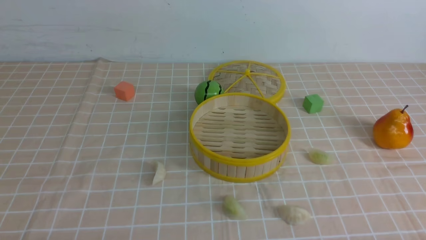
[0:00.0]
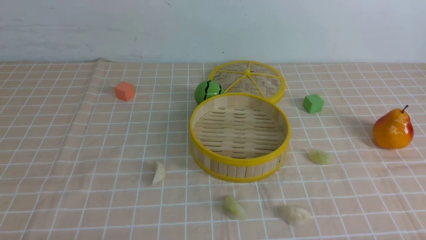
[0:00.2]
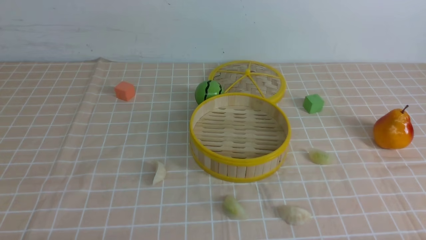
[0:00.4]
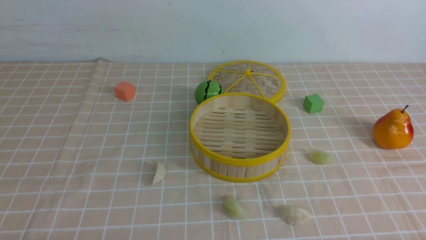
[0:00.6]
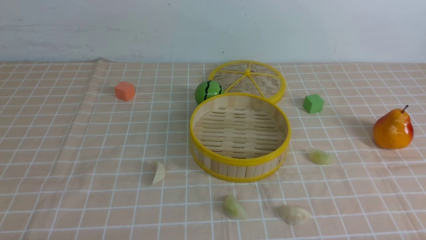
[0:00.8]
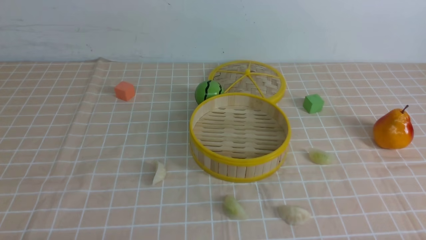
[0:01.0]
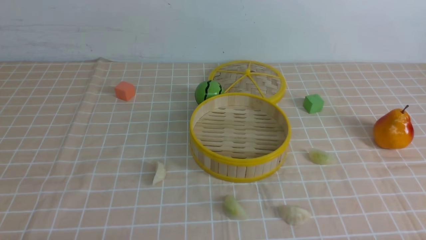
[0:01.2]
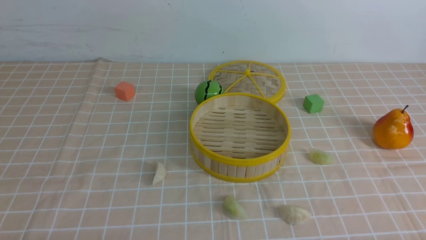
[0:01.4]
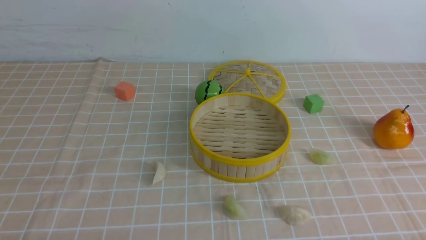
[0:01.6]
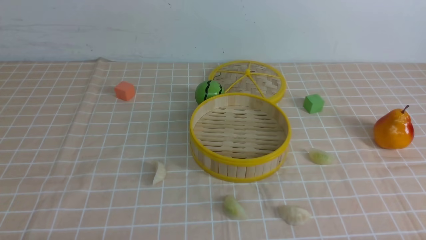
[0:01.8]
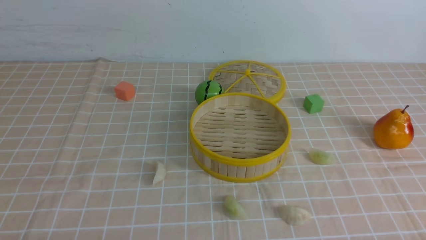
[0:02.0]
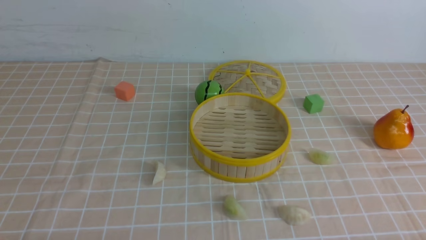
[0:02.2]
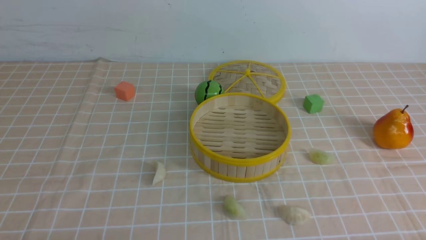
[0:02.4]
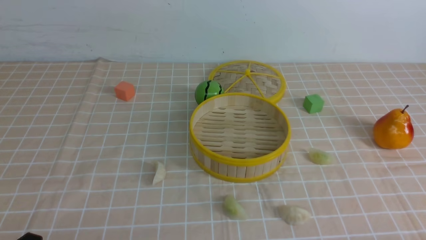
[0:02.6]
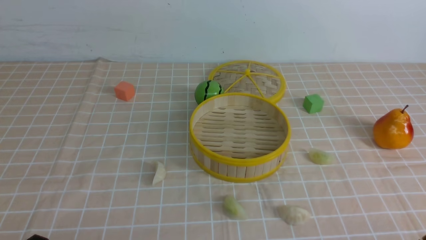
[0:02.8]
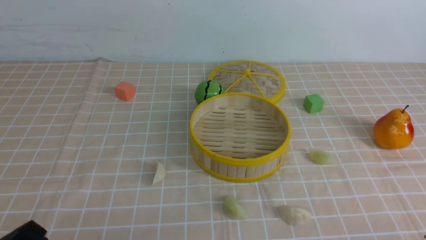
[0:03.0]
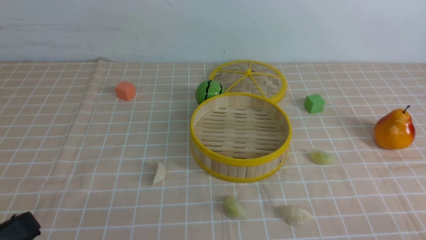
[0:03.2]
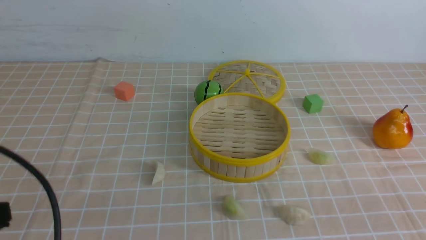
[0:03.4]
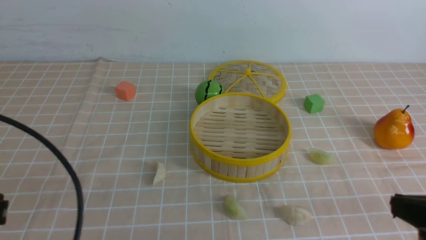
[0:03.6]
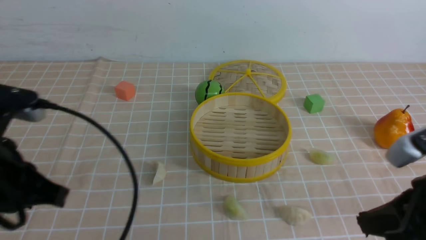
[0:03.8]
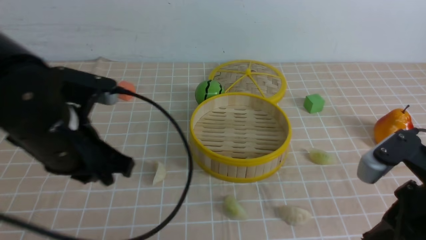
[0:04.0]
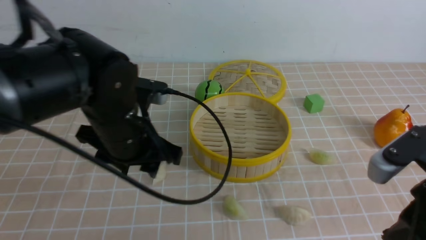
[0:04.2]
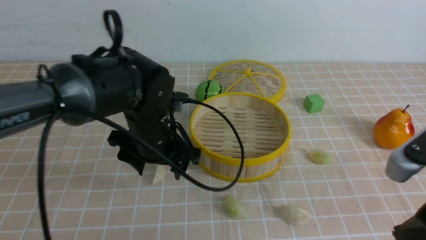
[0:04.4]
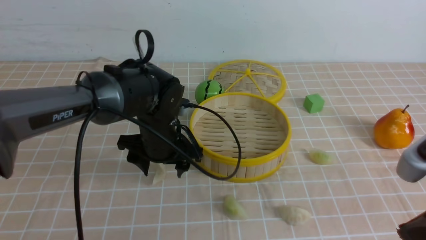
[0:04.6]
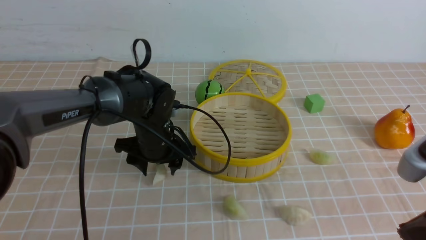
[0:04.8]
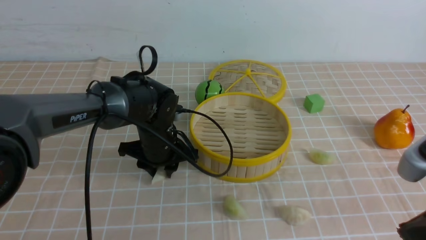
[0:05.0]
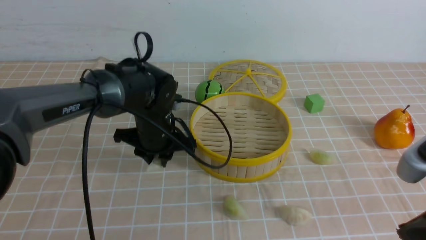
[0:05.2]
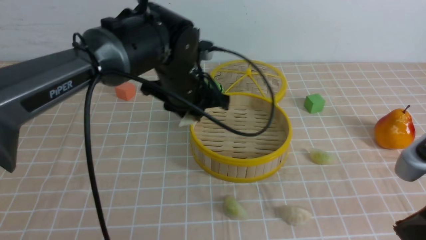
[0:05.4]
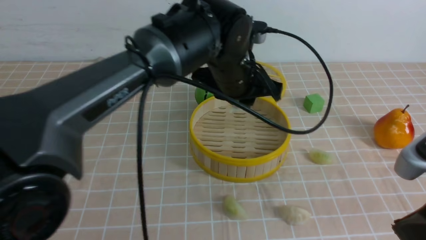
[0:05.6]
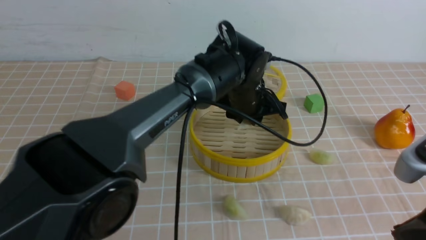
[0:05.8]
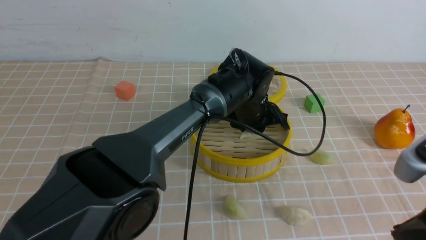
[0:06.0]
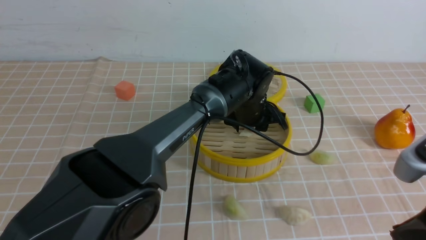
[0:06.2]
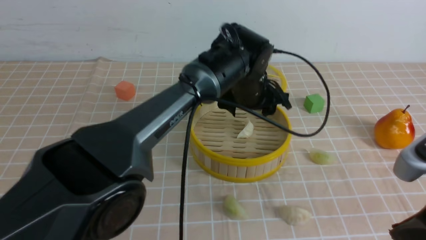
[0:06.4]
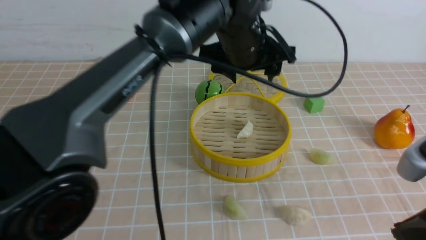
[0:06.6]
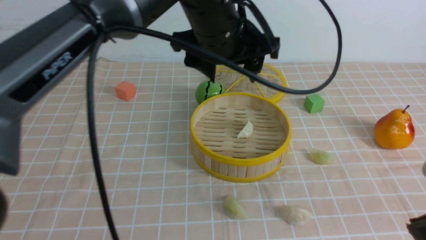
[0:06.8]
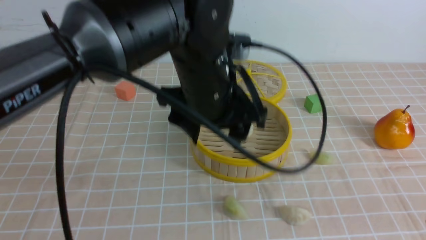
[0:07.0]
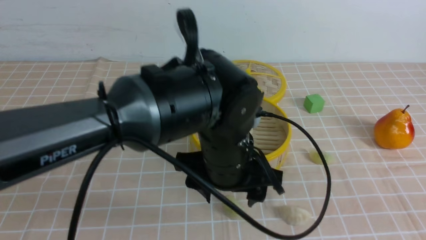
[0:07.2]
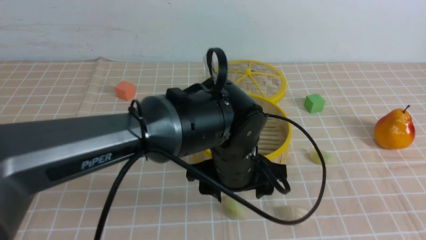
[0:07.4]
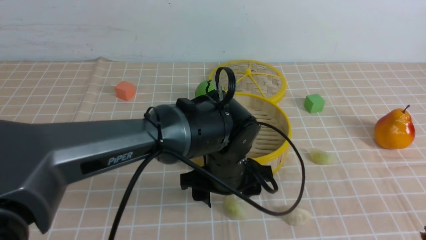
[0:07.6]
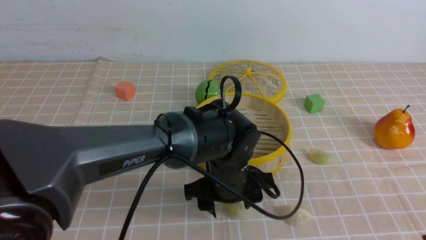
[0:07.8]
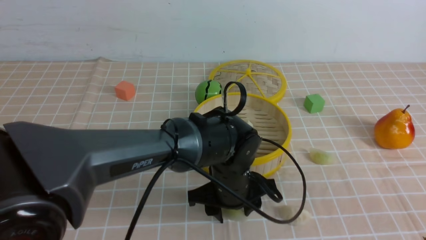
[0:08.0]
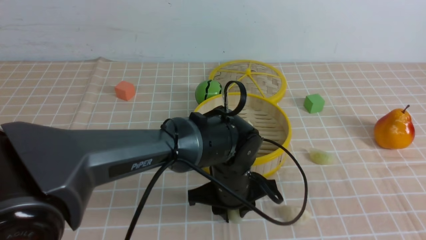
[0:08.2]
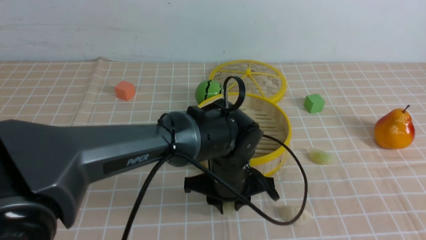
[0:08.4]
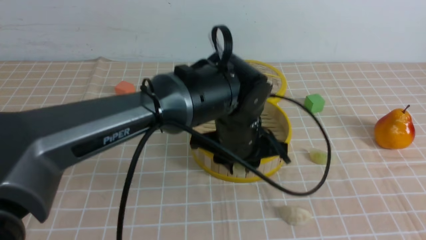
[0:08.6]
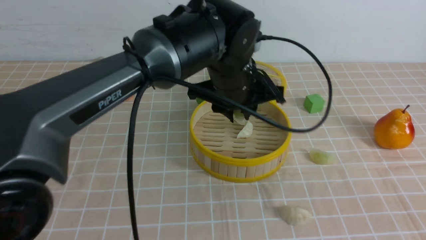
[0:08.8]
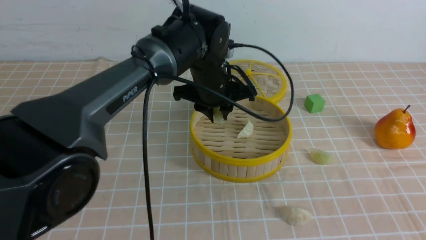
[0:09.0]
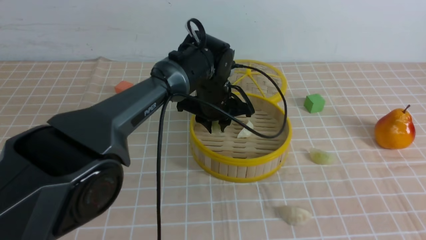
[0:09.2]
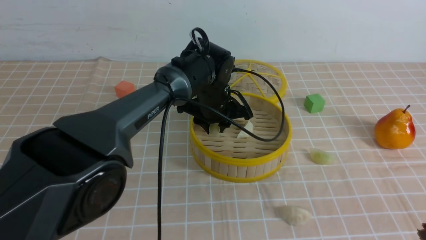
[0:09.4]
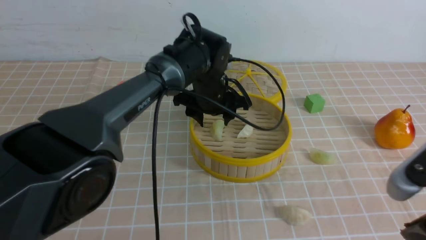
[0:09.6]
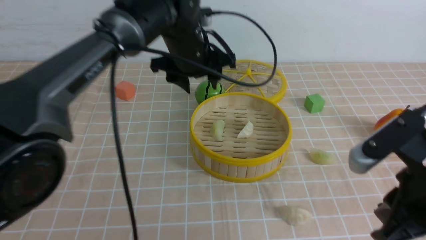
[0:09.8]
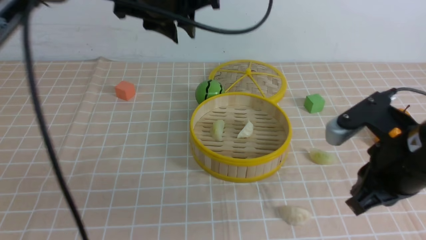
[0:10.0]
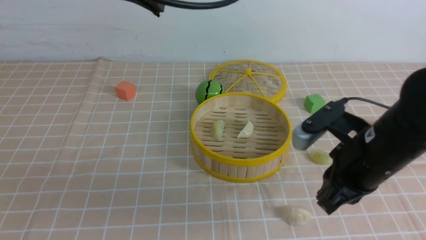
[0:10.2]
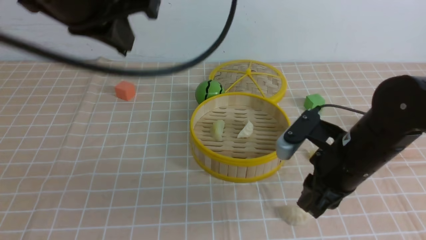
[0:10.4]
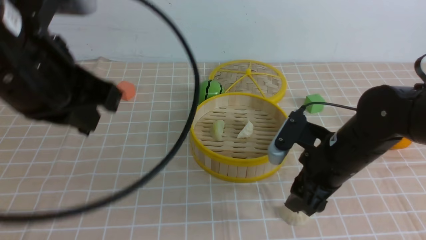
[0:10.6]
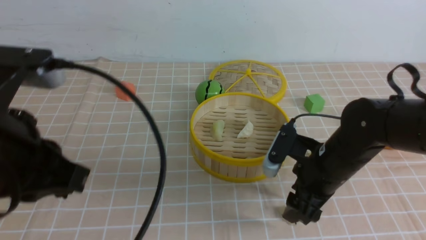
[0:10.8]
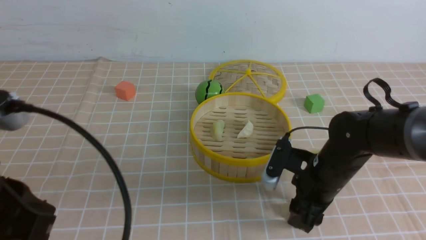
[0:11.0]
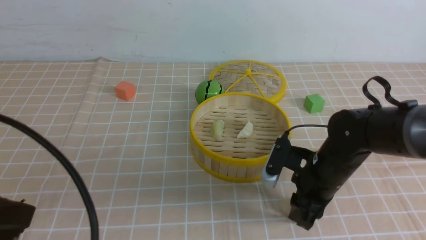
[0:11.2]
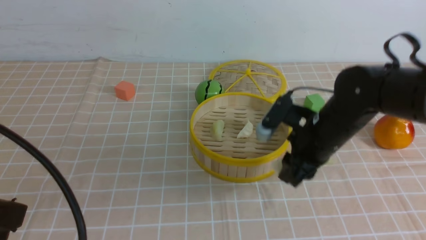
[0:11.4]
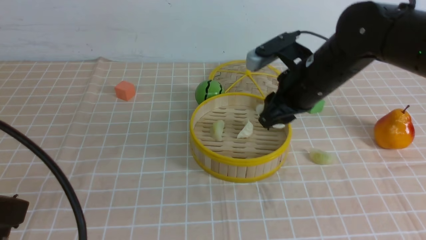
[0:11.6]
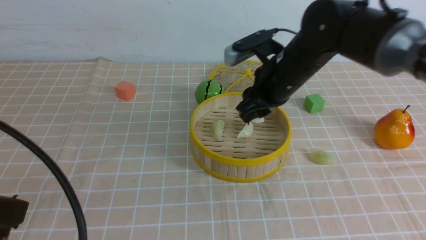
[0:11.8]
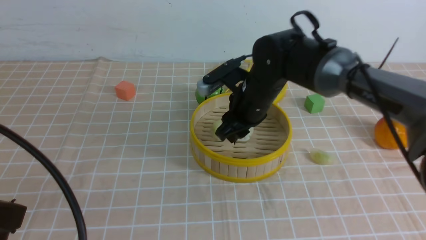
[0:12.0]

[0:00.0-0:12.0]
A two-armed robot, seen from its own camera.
Task of the whole recording: put the dumplings into the steamer on the table with the brown tablecloth.
Step, 0:00.0 to 0:04.8: use the left arm to grab a dumpling.
Step, 0:05.2 to 0:06.4: use the left arm to put the dumpling into the steamer.
Step, 0:06.6 to 0:08.2: use the left arm to grab a dumpling.
Step, 0:08.4 to 0:09.6: use the left arm to put the dumpling into the steamer.
Step, 0:09.8 to 0:10.8: use the right arm to grab a dumpling.
0:00.0 to 0:01.6: The two grippers keep their place.
0:03.0 to 0:04.4: The left gripper goes approximately 30 cm forward and to the right, and opens its fingers; the right gripper heads upward, forward and to the left, covering about 15 cm, and closes its fingers.
0:04.4 to 0:06.0: The left gripper travels to the right and forward by about 20 cm, and closes up.
0:06.0 to 0:07.6: The right gripper heads backward, covering roughly 5 cm, while the left gripper moves backward, roughly 15 cm, goes upward and returns, roughly 15 cm each way, and opens up.
0:07.6 to 0:09.0: The left gripper heads forward and upward, covering approximately 15 cm, and closes its fingers.
0:09.0 to 0:10.4: The left gripper goes roughly 30 cm upward, backward and to the left, and closes up. Meanwhile the right gripper heads forward, downward and to the left, covering about 25 cm.
0:10.4 to 0:12.0: The right gripper goes approximately 15 cm forward and to the left, and opens, then closes once more, while the left gripper is displaced backward, downward and to the left by approximately 20 cm.

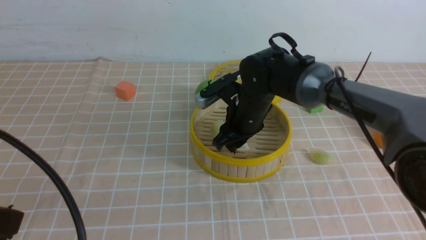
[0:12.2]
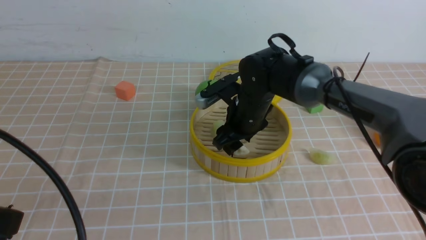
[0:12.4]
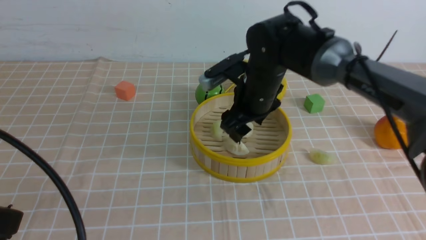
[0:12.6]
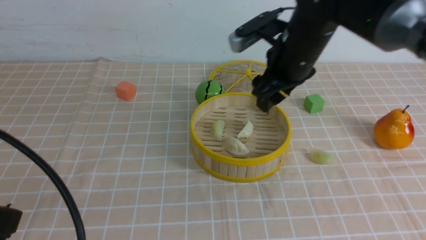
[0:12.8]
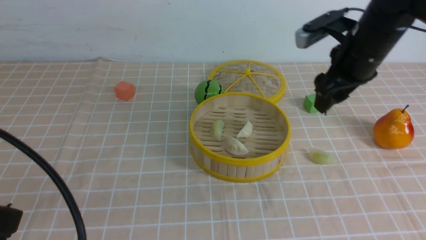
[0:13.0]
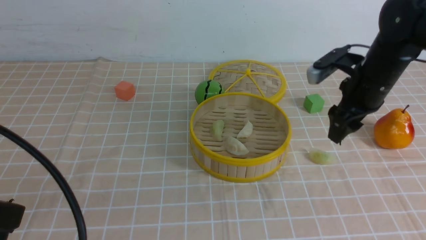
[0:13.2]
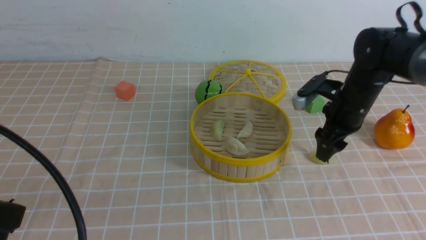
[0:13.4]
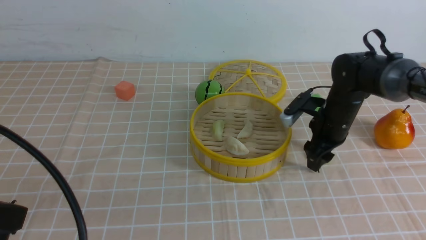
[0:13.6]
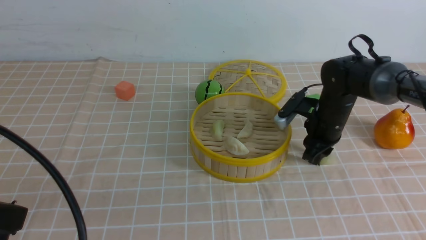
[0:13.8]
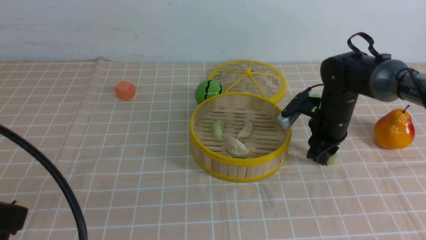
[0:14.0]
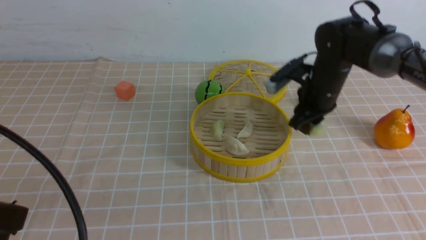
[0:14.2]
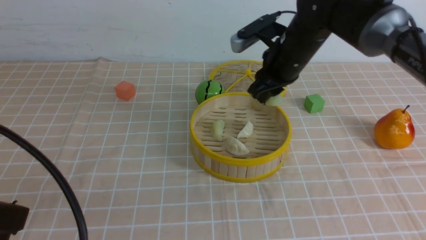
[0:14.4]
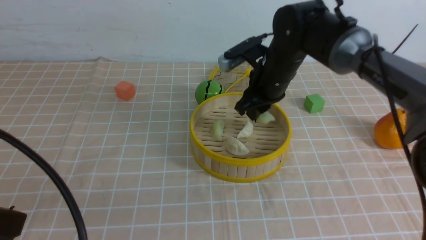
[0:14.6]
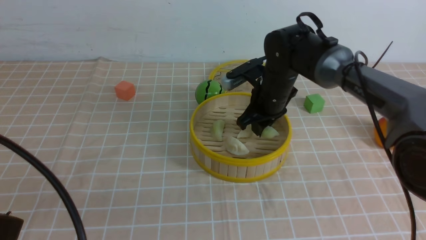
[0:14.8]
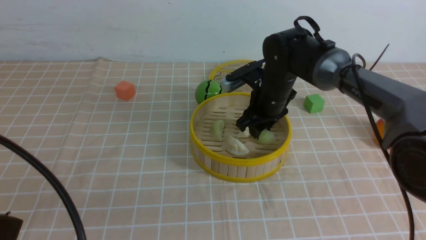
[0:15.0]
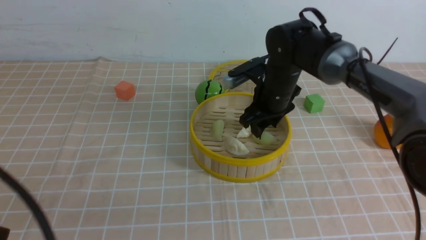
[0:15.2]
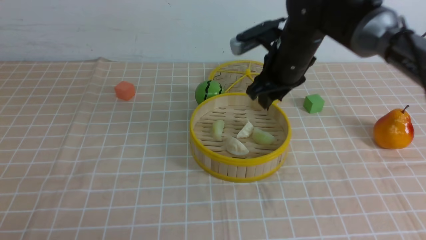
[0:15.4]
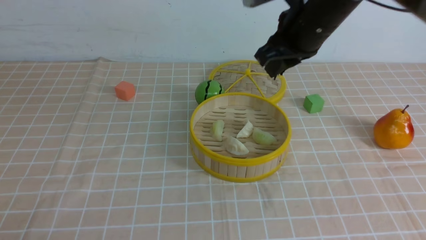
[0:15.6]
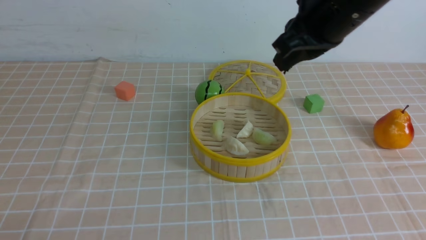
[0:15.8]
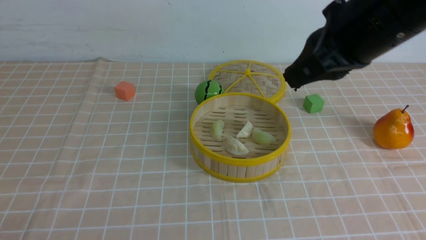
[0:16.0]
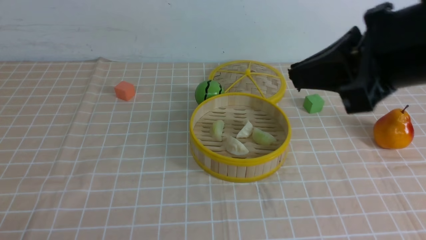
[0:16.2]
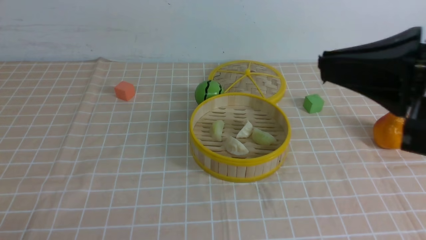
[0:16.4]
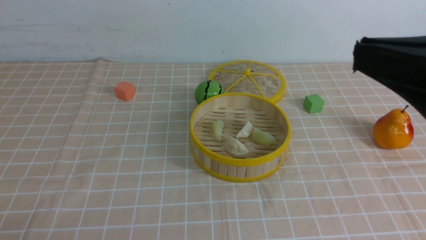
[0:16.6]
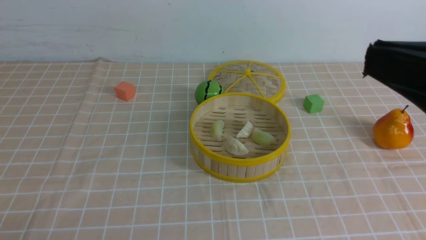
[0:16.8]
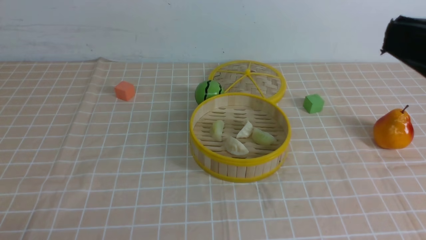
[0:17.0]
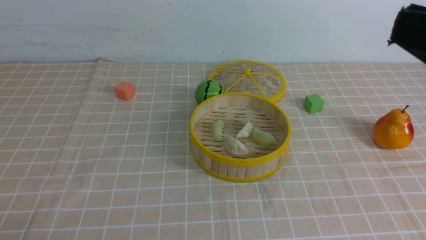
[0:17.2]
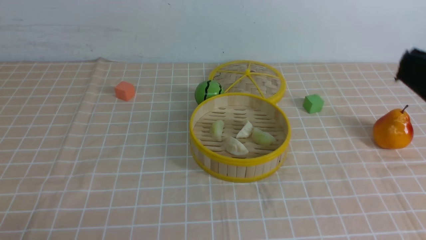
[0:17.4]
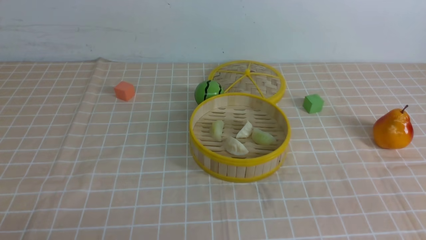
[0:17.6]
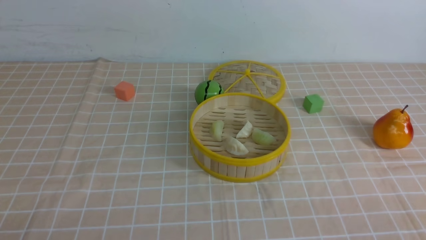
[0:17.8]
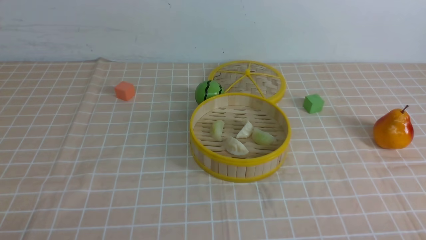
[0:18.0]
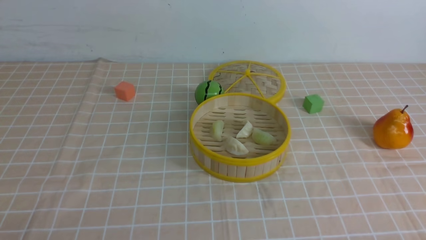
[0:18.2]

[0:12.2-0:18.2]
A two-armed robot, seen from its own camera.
Task of the whole recording: put the dumplings into the steamer on the table with the brown tablecloth.
Step, 0:12.8 to 0:13.6: use the right arm to grab a dumpling.
Step, 0:13.8 to 0:15.2: use the right arm to put the dumpling into the steamer.
0:12.2 to 0:13.8: The right gripper goes some 15 cm to the right.
0:13.8 to 0:15.2: The right gripper shifts approximately 15 cm to the left and upward.
0:15.2 to 0:16.6: The right gripper is displaced backward and upward by about 35 cm, and closes its fingers. The left gripper shifts roughly 10 cm backward and downward.
0:16.6 to 0:18.2: The right gripper is displaced downward and to the right by roughly 25 cm.
